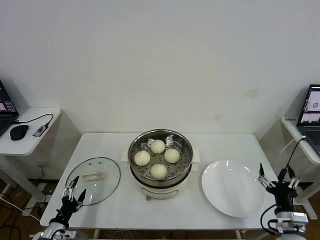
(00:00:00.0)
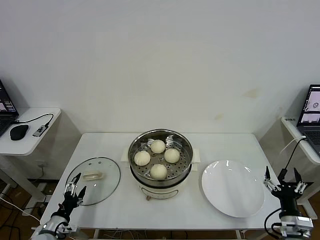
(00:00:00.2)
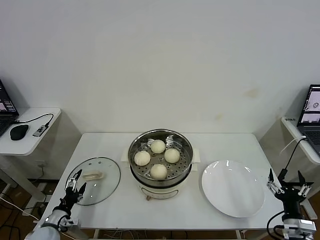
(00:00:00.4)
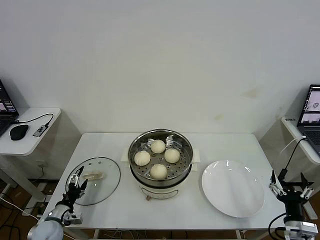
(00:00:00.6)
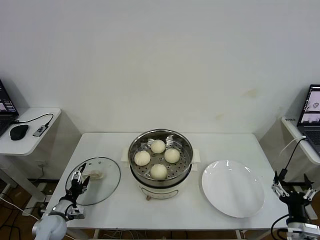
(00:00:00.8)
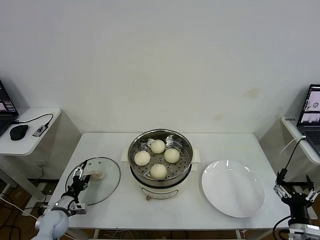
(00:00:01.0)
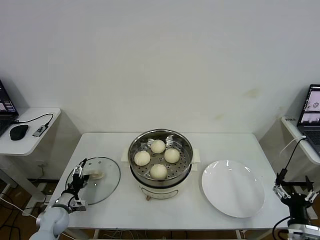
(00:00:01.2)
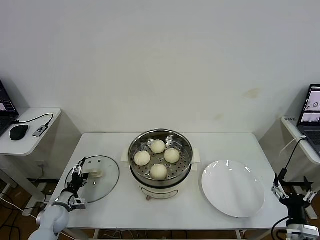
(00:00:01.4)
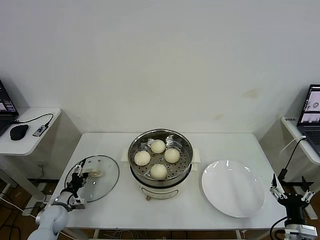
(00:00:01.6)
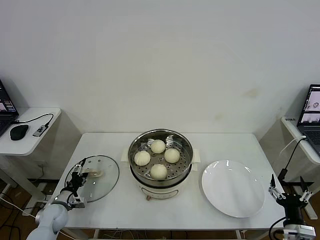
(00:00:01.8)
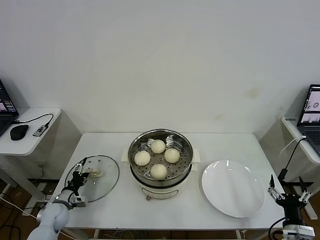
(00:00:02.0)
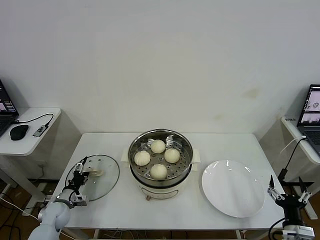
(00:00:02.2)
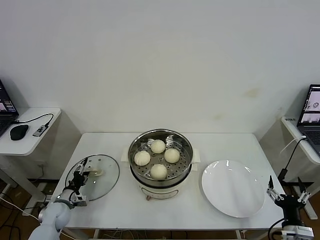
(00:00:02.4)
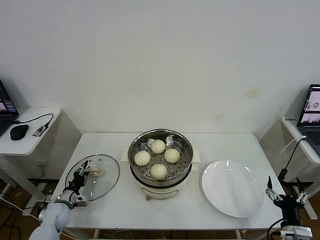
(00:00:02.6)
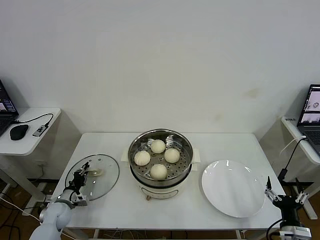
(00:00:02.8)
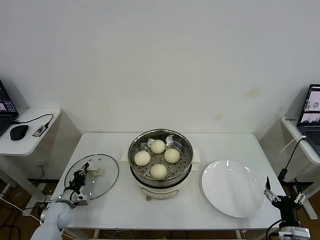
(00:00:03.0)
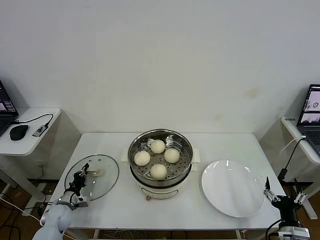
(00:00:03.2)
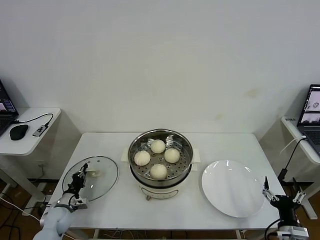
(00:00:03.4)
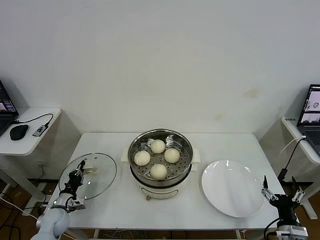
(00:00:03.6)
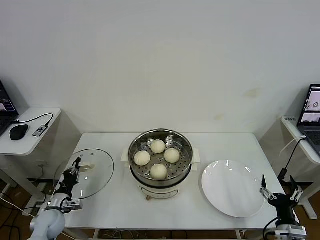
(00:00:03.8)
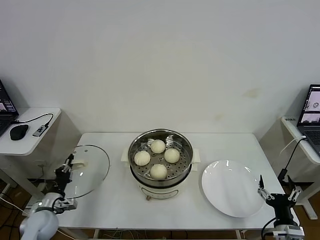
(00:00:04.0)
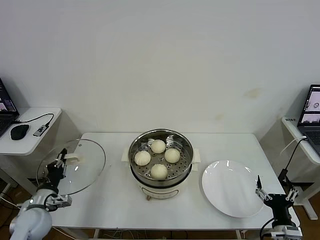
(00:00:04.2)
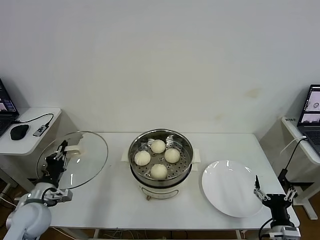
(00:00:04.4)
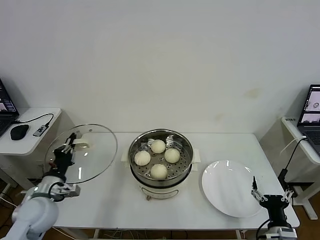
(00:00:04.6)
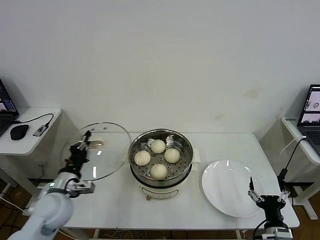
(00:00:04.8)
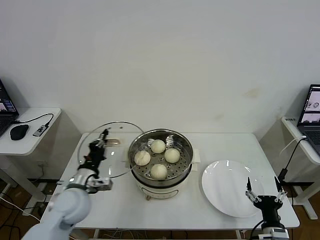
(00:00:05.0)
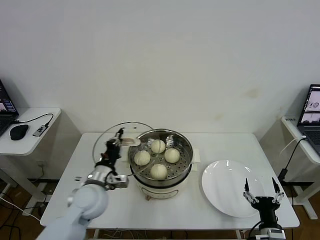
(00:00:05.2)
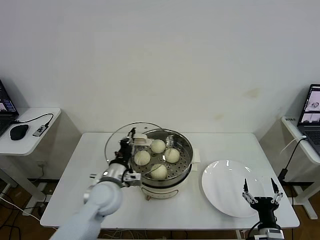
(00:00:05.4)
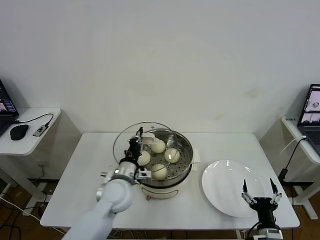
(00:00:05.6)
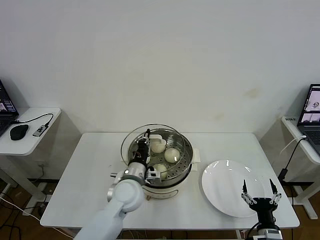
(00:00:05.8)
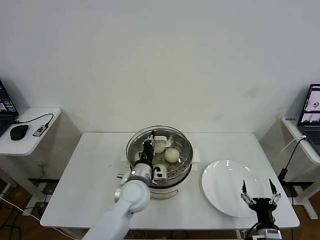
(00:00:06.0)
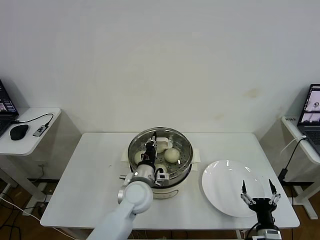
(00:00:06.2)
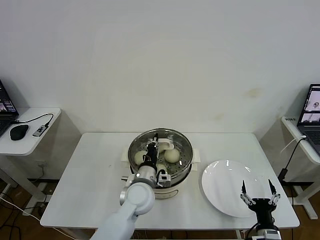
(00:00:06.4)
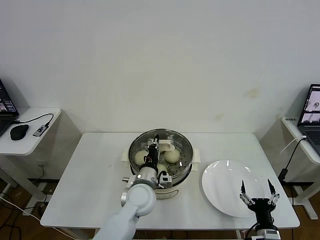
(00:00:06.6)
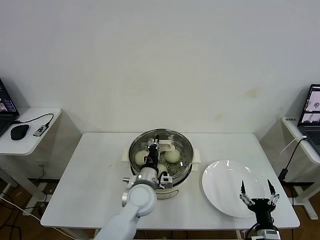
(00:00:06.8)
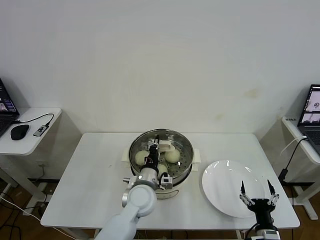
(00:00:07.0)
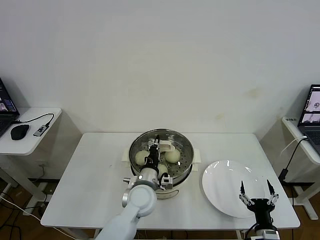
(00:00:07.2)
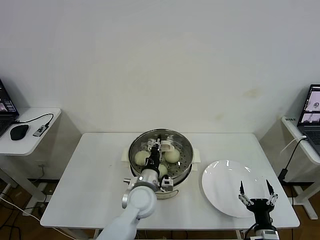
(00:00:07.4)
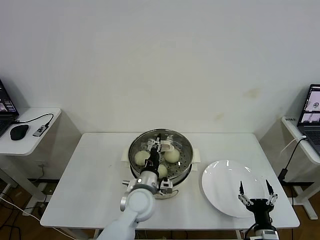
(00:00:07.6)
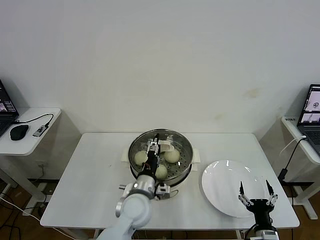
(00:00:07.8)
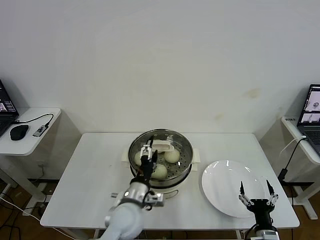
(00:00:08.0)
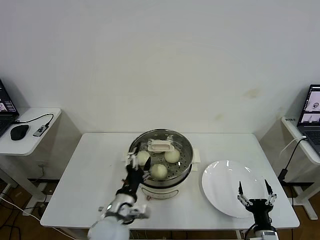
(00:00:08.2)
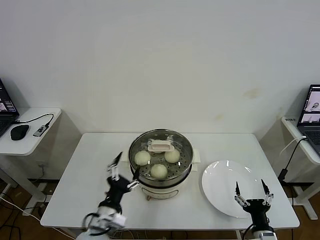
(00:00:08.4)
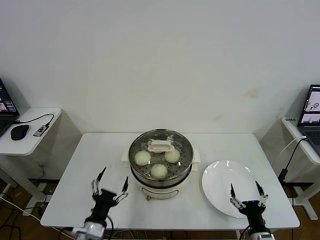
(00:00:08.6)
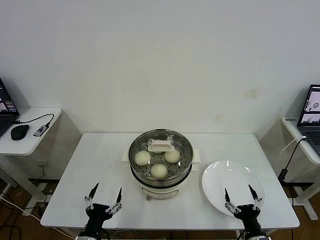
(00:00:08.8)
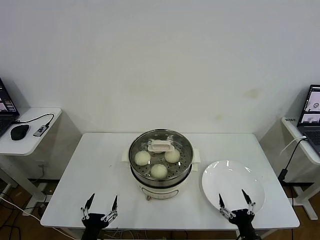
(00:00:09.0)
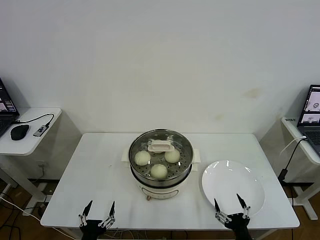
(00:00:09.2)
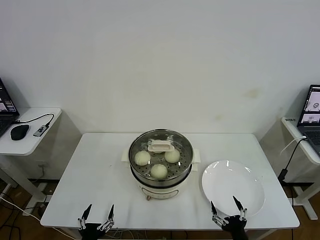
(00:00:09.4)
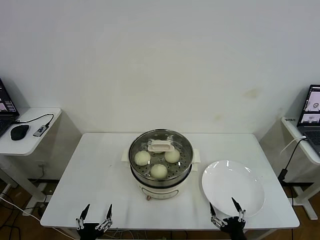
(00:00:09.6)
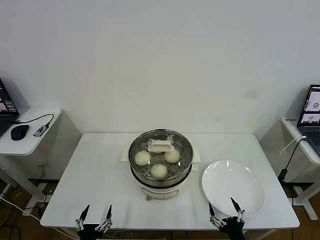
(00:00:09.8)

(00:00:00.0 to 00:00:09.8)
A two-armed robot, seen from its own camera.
Task of the whole recording: take steamed baozi put them in steamer then cover it.
Step, 00:00:00.0 - 00:00:03.0: Grasp the pot lid with left gripper.
Step, 00:00:03.2 - 00:00:08.0: Place the pot lid on the steamer with left gripper.
00:00:00.0 - 00:00:01.4: The left gripper heads forward, covering roughly 15 cm.
00:00:01.4 - 00:00:02.8: The left gripper closes its fingers.
00:00:02.8 - 00:00:04.2: The left gripper shifts approximately 15 cm upward and backward.
00:00:04.2 - 00:00:05.6: The left gripper goes approximately 25 cm to the right.
00:00:05.6 - 00:00:07.0: The left gripper travels to the right by approximately 10 cm.
00:00:07.0 - 00:00:08.4: The left gripper moves backward and to the left, roughly 15 cm, and opens its fingers.
00:00:08.4 - 00:00:09.8: The left gripper travels backward, downward and to the left by some 20 cm, while the right gripper ends up approximately 5 cm from where it was.
